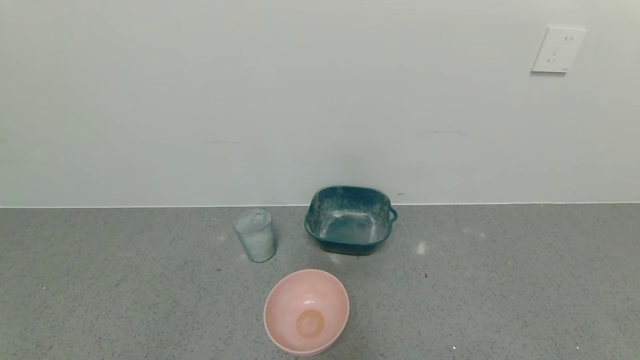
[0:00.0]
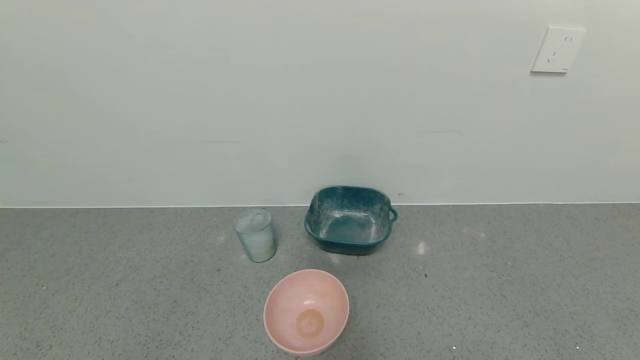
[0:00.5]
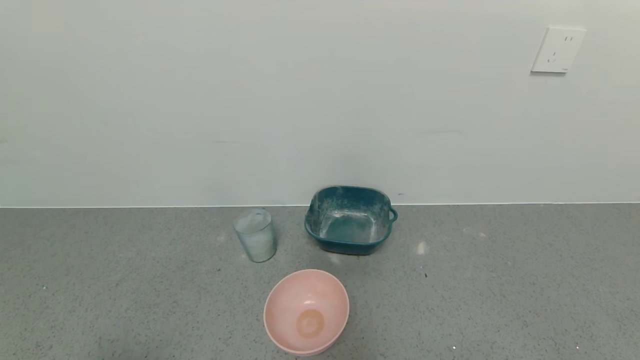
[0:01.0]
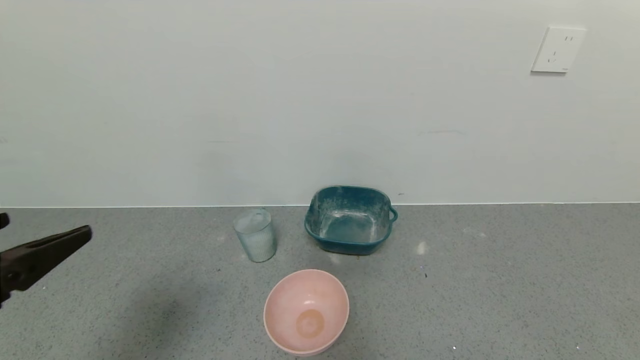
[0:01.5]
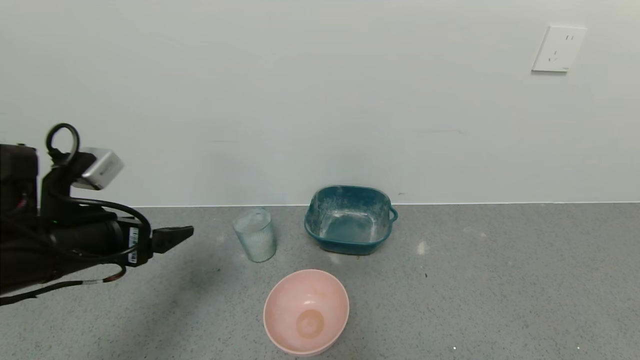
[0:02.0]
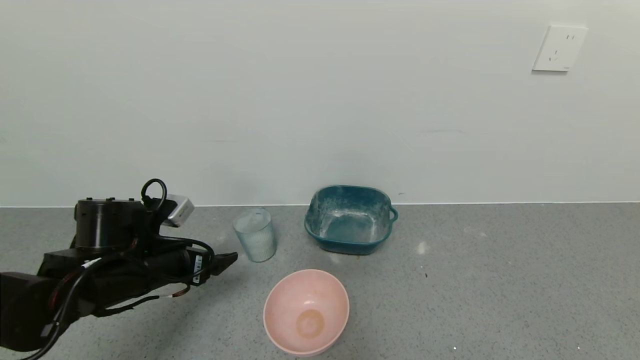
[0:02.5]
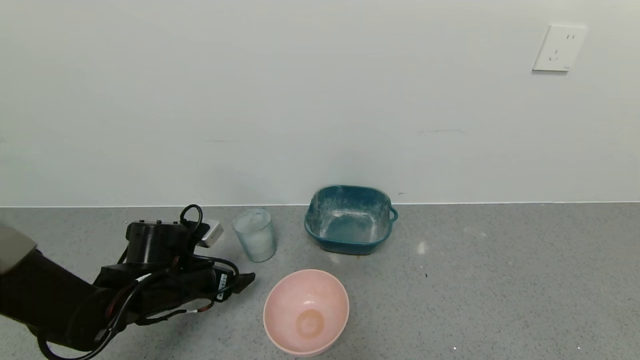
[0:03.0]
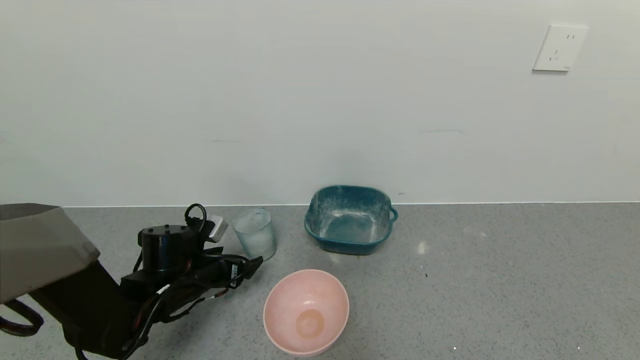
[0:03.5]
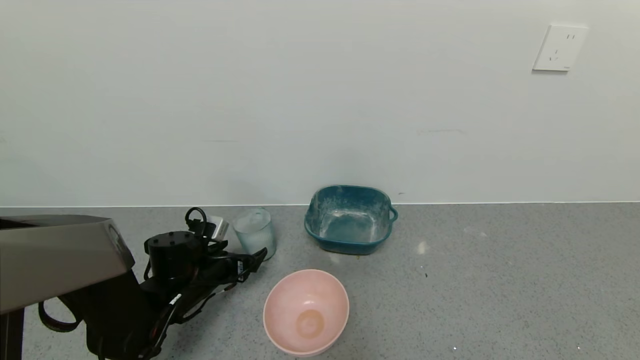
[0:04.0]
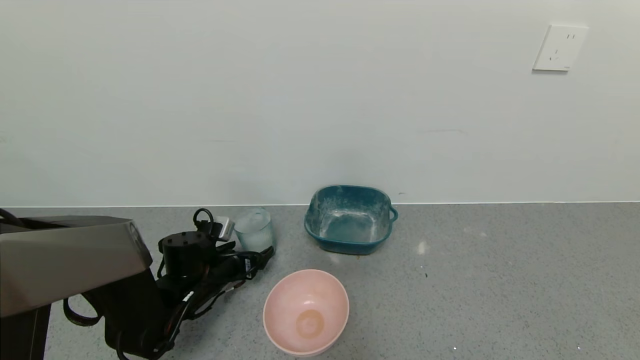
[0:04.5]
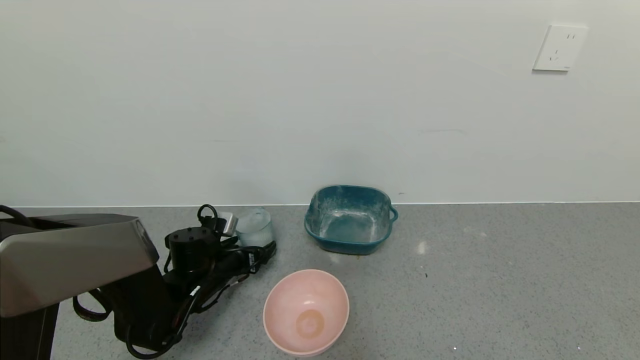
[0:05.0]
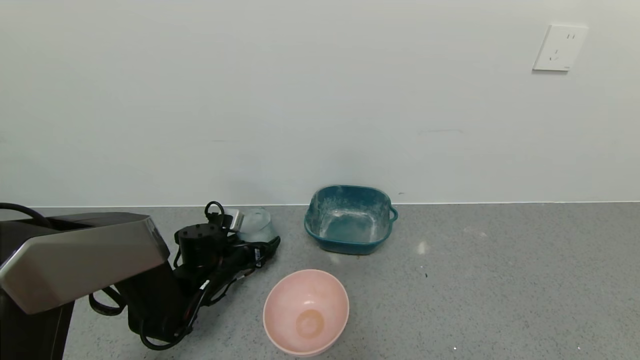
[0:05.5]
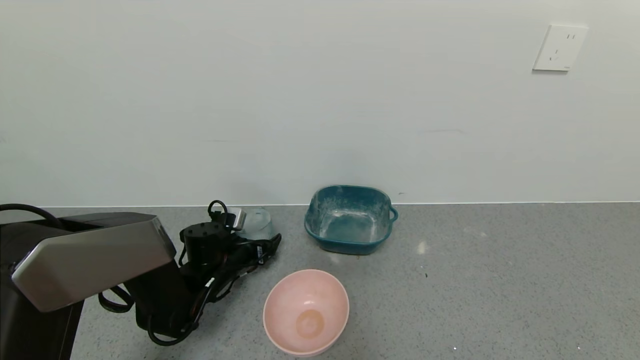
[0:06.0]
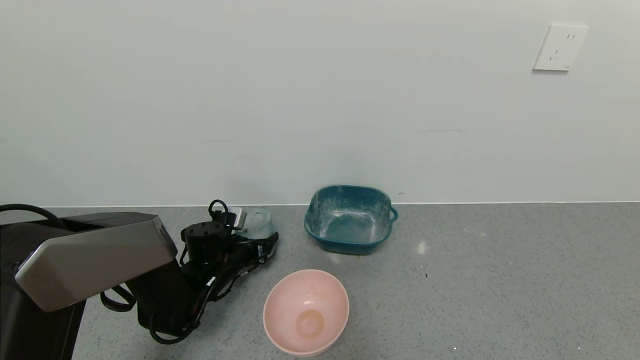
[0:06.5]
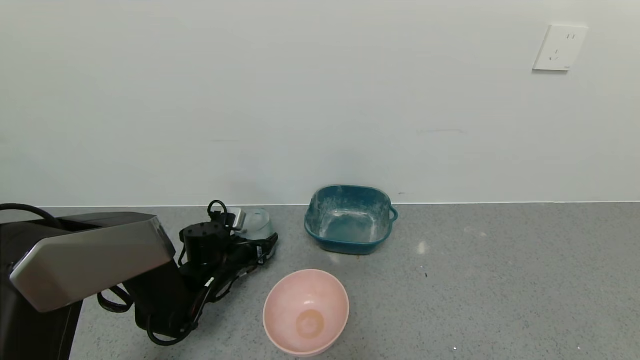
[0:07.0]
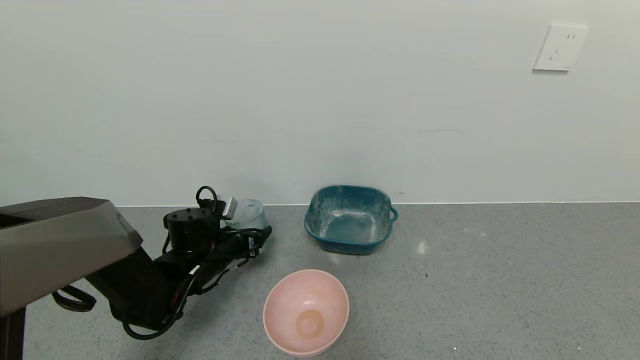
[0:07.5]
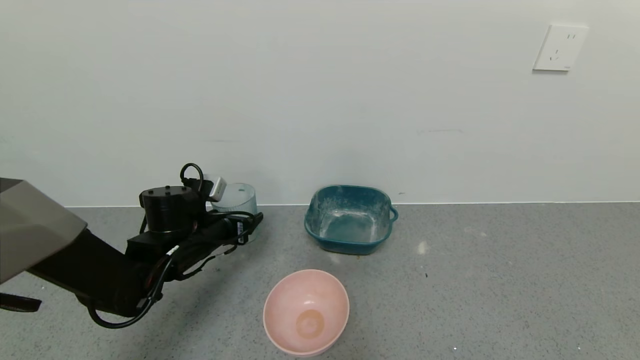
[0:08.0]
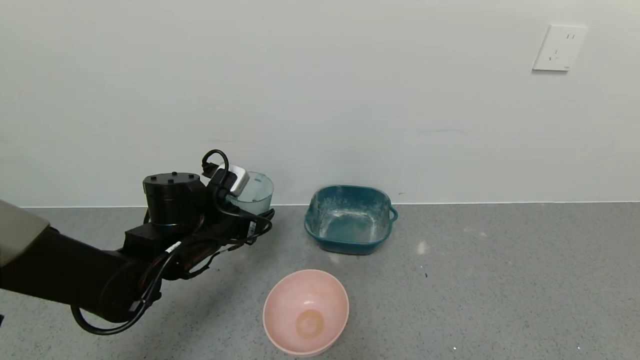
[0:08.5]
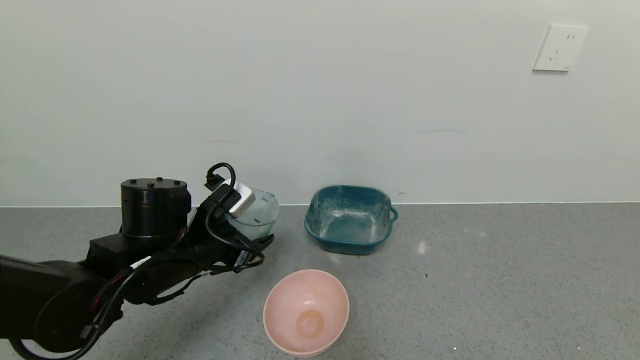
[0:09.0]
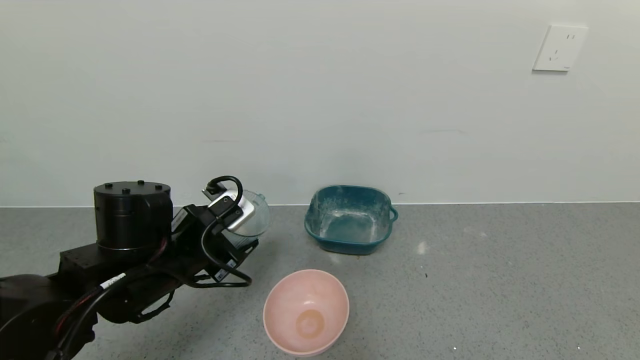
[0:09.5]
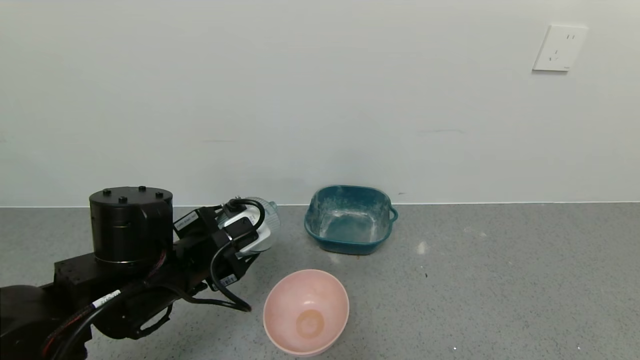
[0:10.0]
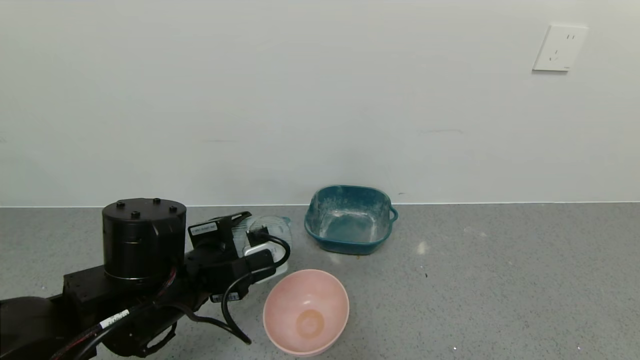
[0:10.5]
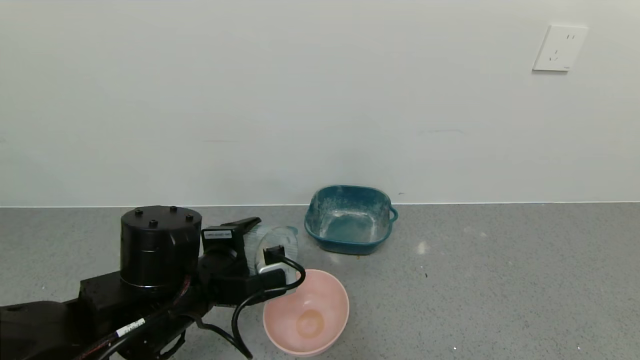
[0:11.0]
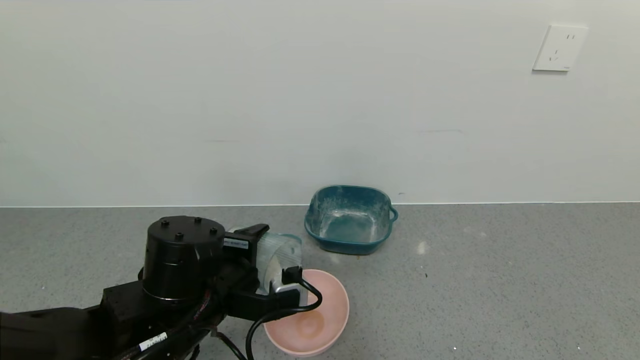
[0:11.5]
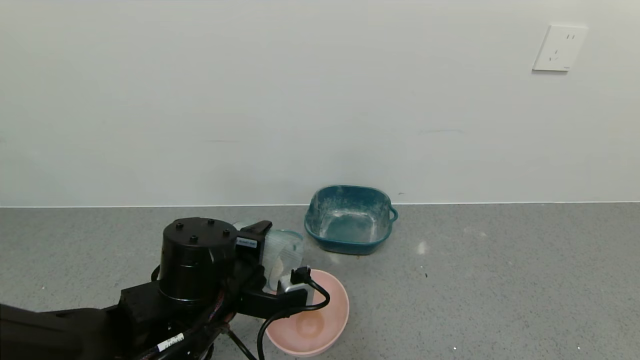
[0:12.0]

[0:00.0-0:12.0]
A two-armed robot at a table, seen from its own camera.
Task of the whole recording: use a gripper to pick up the cup and pour the powder into a bowl or tray.
Step, 0:00.0 to 0:06.5: Grasp the glass of powder with the left gripper.
0:00.0 to 0:02.0: The left gripper is displaced forward and upward by roughly 30 cm.
0:02.0 to 0:04.0: The left gripper moves downward and forward, roughly 20 cm.
0:04.0 to 0:06.0: The left gripper ends up some 5 cm from where it was.
0:06.0 to 0:08.0: The left gripper heads upward, covering about 10 cm, and closes.
0:08.0 to 0:10.0: The left gripper shifts approximately 10 cm backward and upward.
0:10.0 to 0:12.0: The left gripper moves about 5 cm.

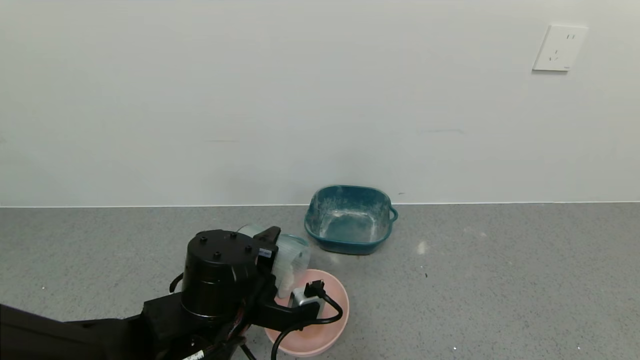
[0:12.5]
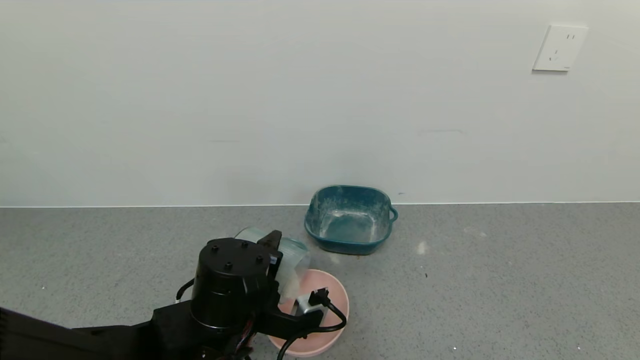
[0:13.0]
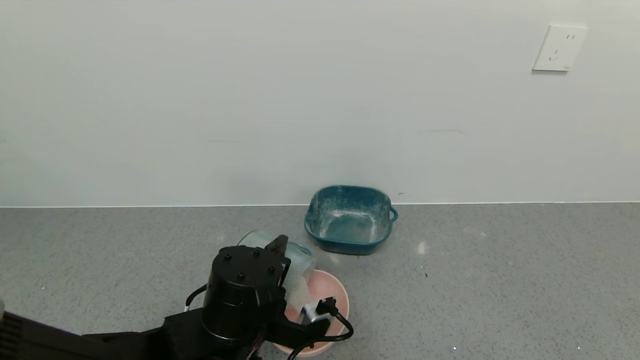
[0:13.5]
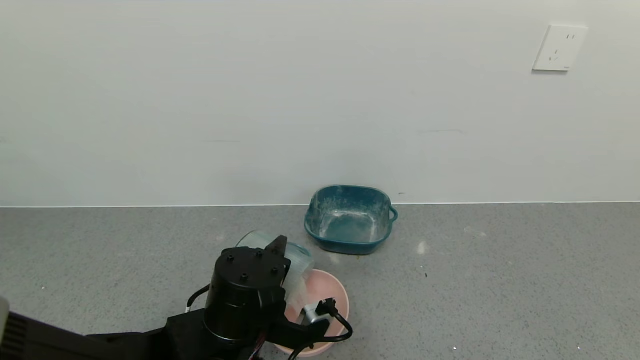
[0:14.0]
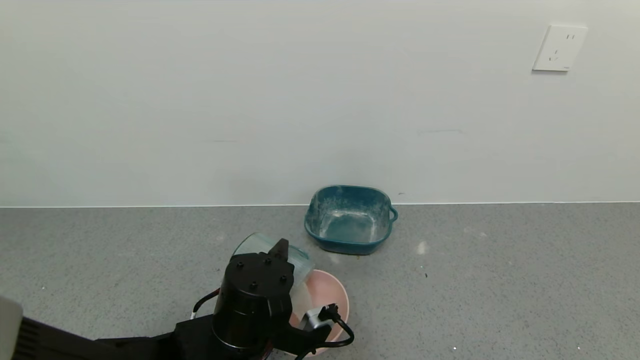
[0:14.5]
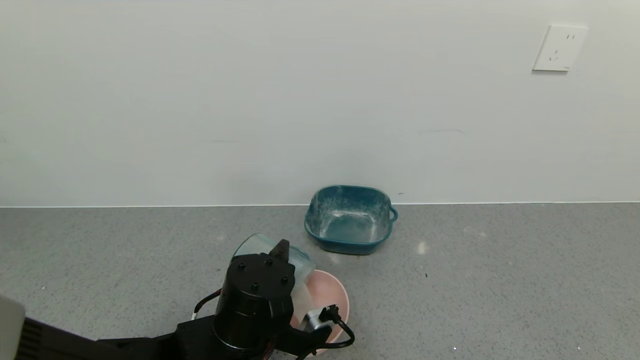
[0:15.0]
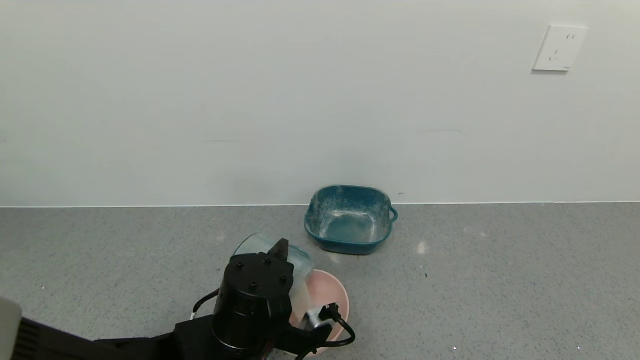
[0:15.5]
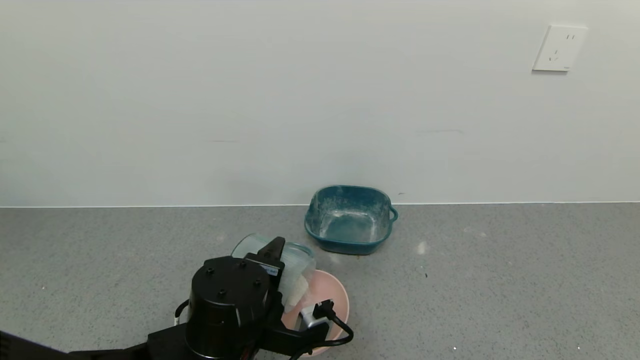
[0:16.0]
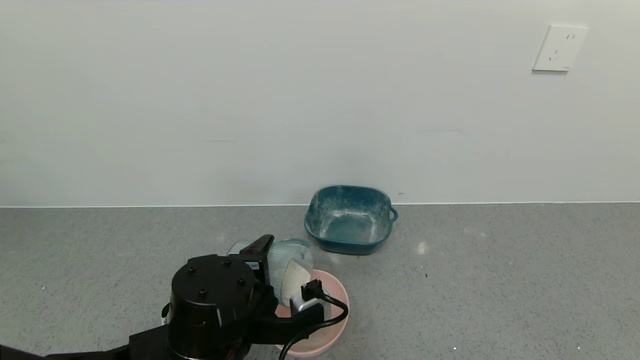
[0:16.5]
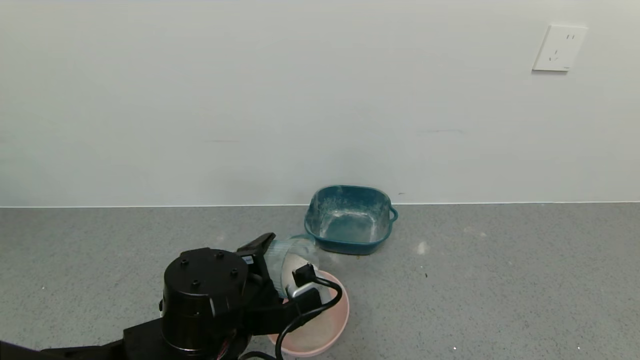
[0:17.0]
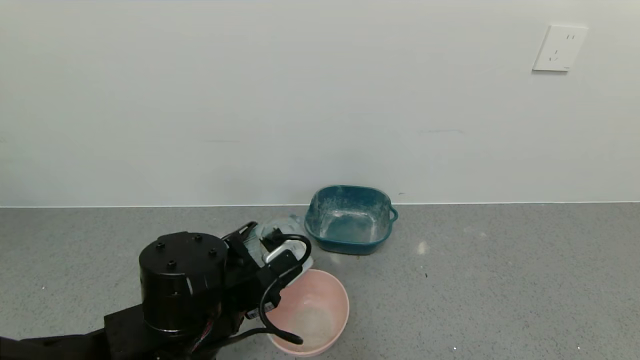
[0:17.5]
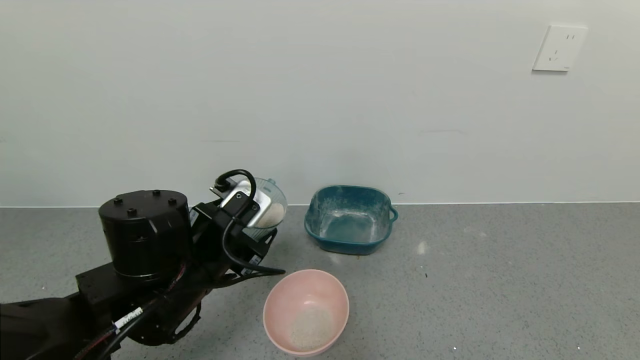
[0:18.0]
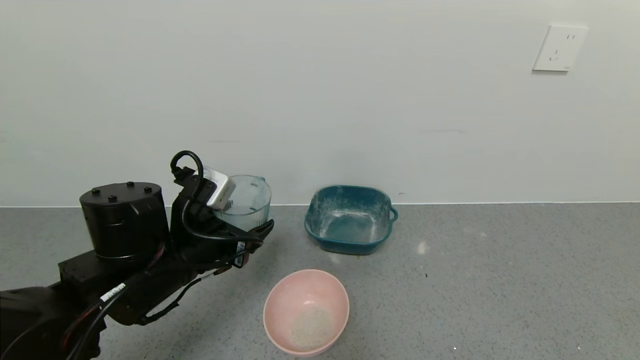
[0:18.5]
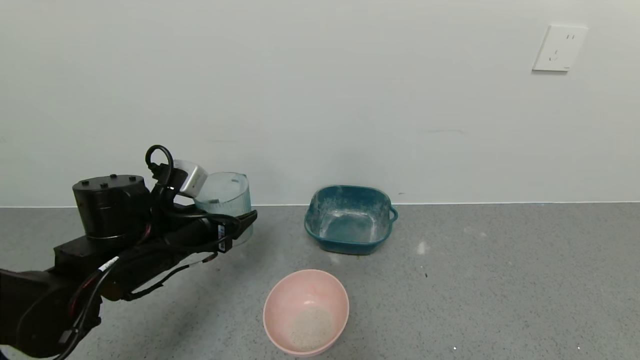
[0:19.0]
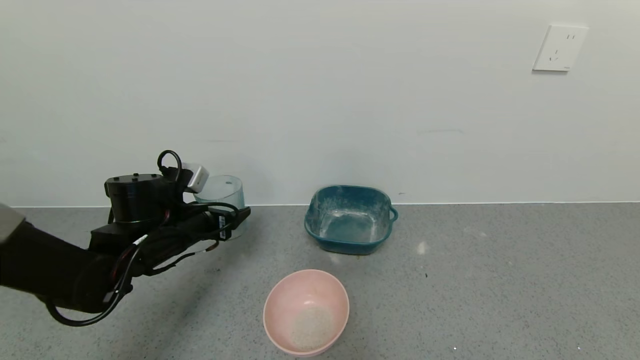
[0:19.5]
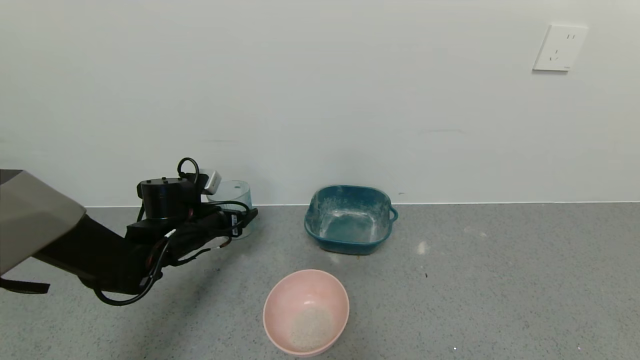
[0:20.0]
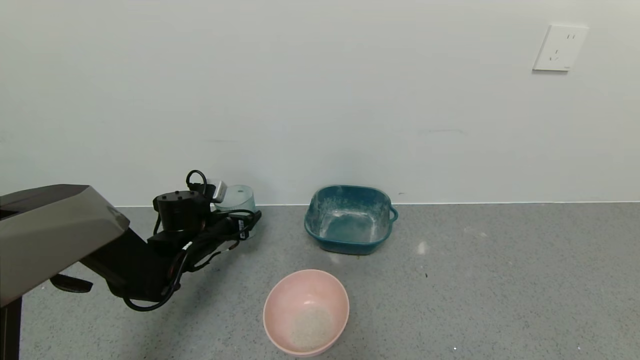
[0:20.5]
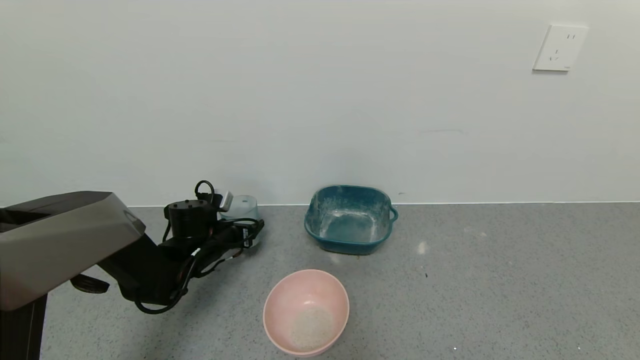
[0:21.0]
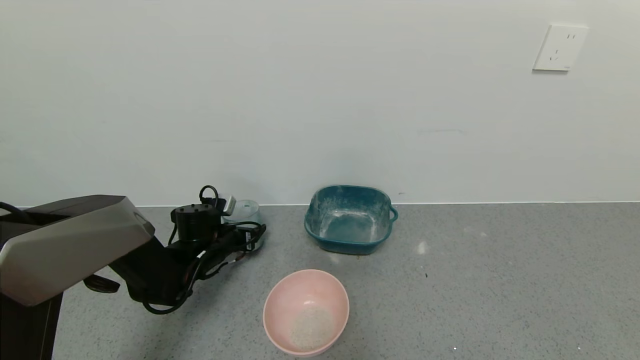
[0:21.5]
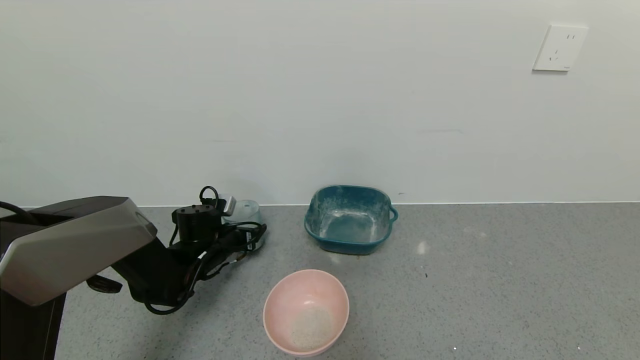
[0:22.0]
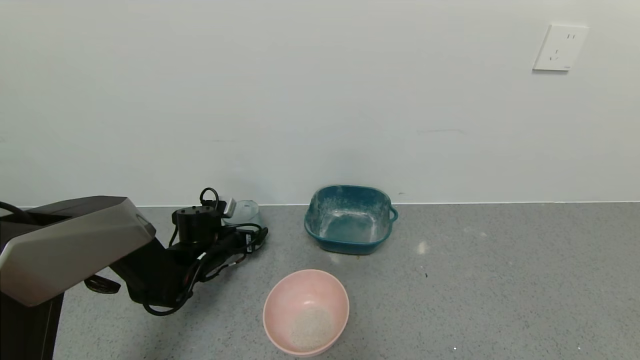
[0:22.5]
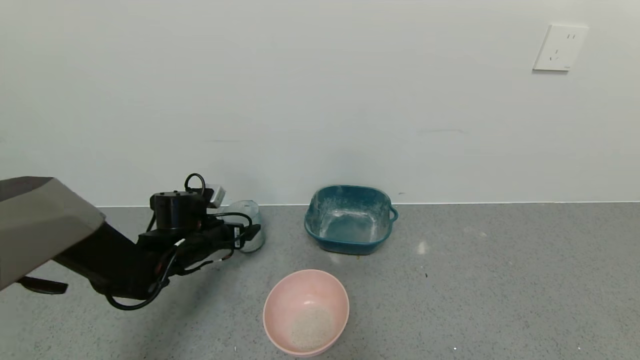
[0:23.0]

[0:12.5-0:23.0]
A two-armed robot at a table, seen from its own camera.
Task of the whole recording: use a gripper to pick up the cup and pour the powder into a bowl or tray.
Step, 0:12.5 to 0:16.0: Pour the powder into the pink bowl with the left gripper.
Step, 0:16.5 to 0:23.0: Place the glass cup down with the left gripper.
0:12.5 to 0:14.5: The grippers make only small movements.
0:16.5 to 0:19.0: The left gripper is displaced to the left and forward by approximately 15 cm.
0:19.0 to 0:21.0: The left gripper goes some 15 cm forward and downward.
0:21.0 to 0:23.0: The left gripper opens up.
